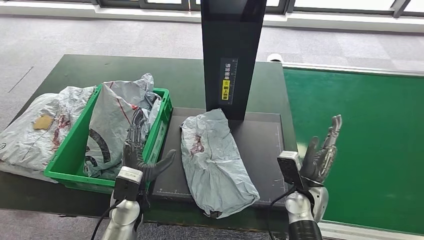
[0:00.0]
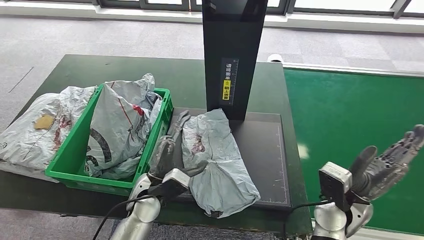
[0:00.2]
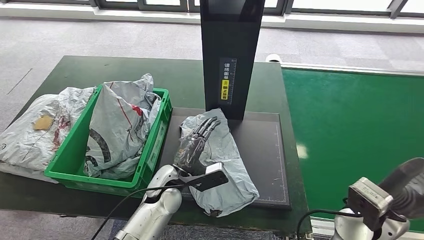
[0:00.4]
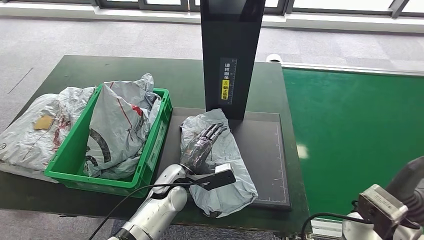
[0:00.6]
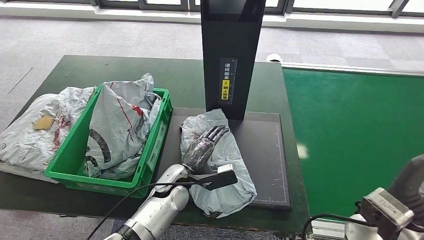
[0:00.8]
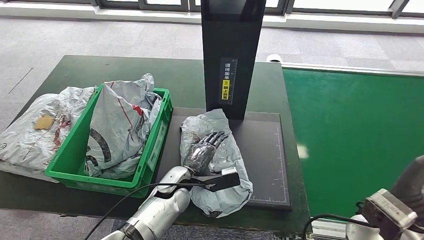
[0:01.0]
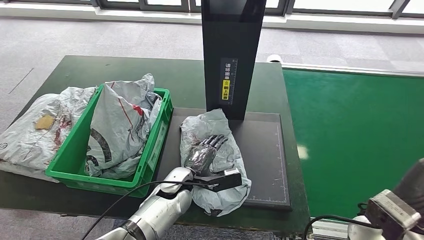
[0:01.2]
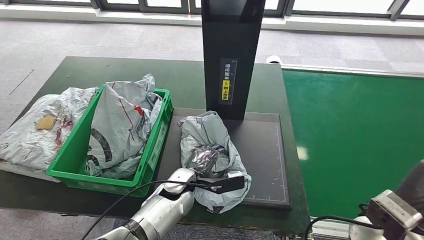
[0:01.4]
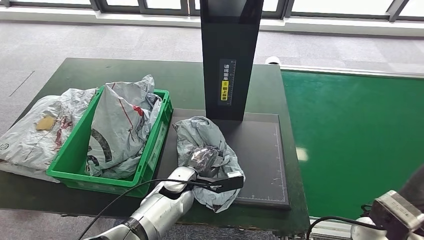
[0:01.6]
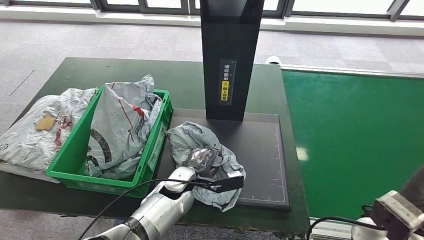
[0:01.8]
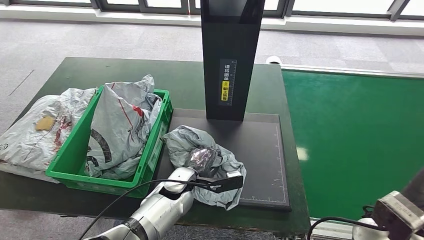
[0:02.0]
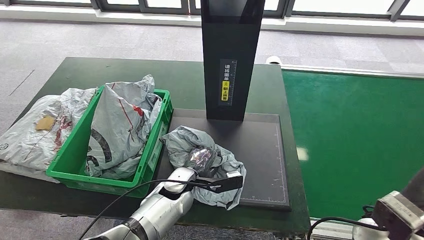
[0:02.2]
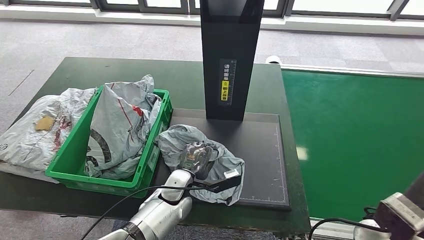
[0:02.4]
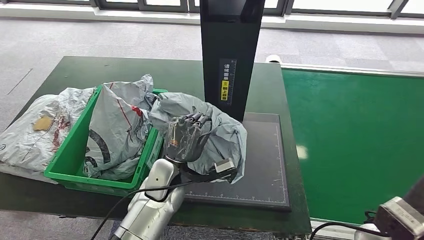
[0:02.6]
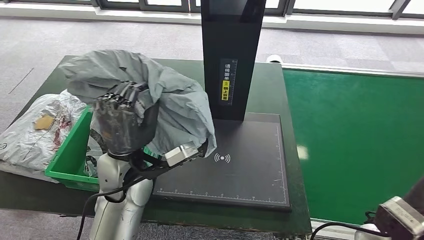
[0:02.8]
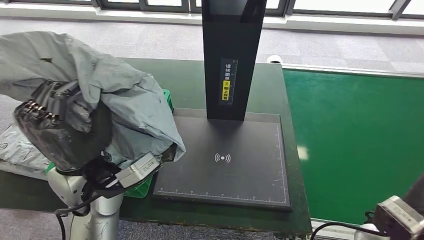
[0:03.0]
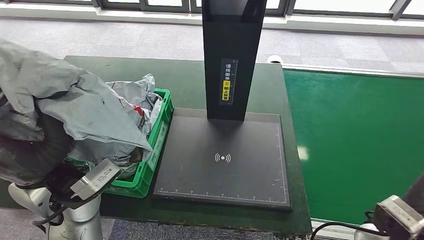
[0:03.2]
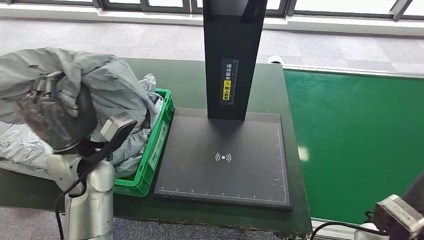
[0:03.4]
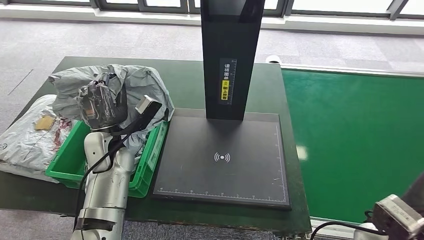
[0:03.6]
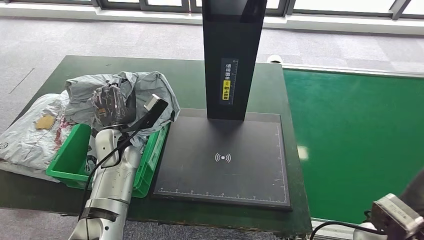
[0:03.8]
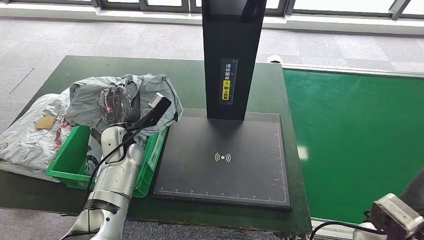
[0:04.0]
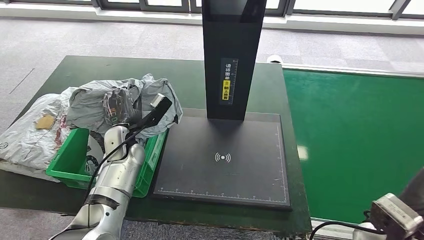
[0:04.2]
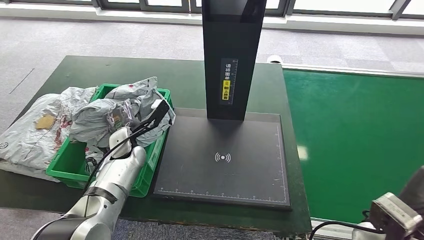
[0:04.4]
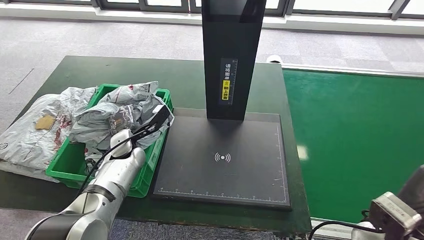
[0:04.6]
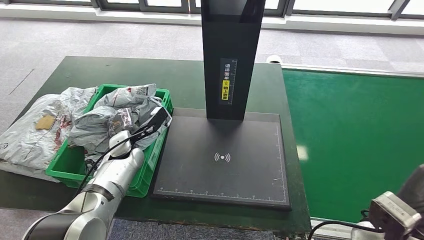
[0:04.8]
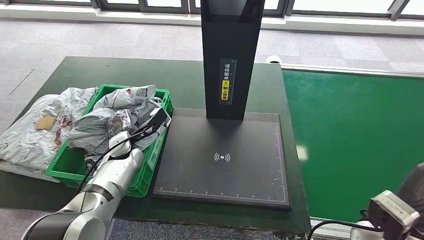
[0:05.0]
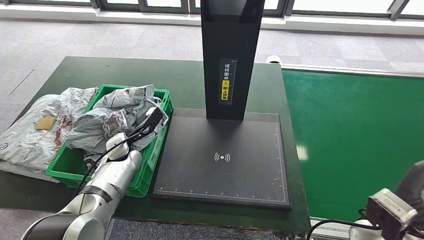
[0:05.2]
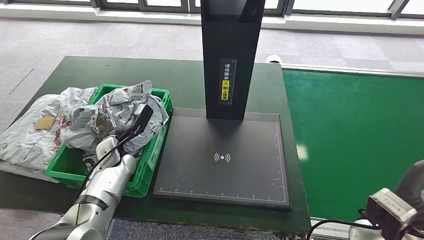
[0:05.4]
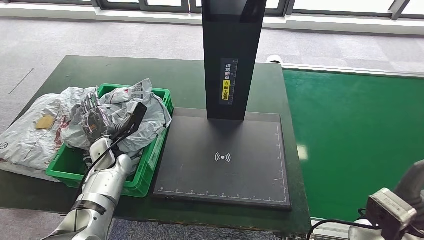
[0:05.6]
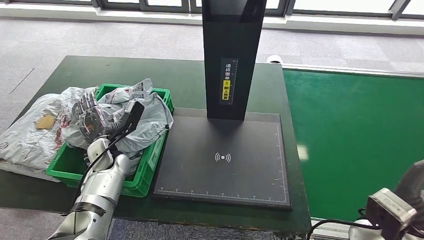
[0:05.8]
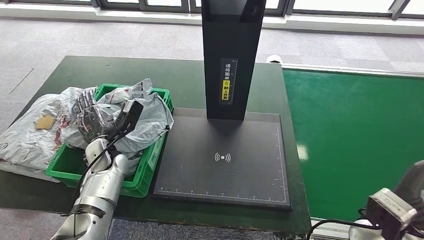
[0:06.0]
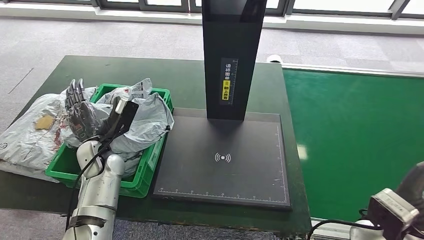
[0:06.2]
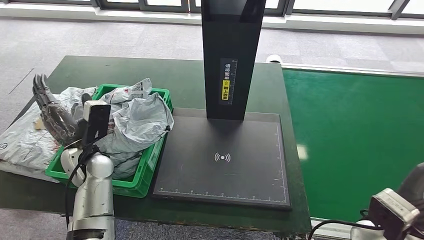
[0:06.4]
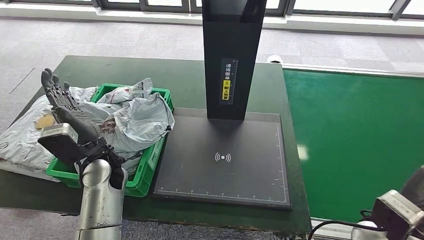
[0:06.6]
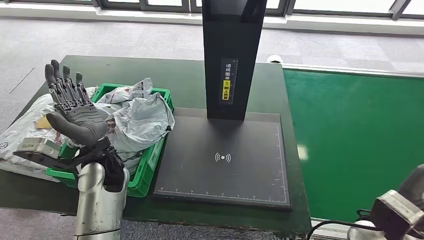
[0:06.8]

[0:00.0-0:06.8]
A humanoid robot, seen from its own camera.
Step, 0:01.6 to 0:03.0: Pick up the parcel from the inbound machine.
Step, 0:03.2 to 0:06.6: Place the parcel into the delivery box.
0:02.8 to 0:04.0: The left hand moves forward, downward and to the left, roughly 15 cm.
0:04.0 to 0:05.4: The left hand is displaced downward by about 5 cm.
0:05.4 to 0:06.8: The left hand moves upward and backward, some 10 cm.
